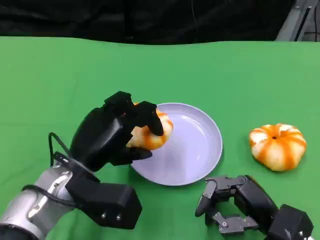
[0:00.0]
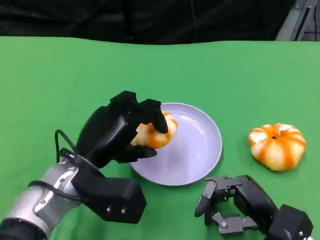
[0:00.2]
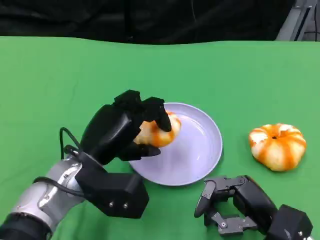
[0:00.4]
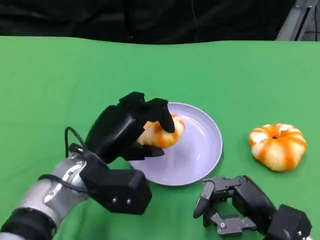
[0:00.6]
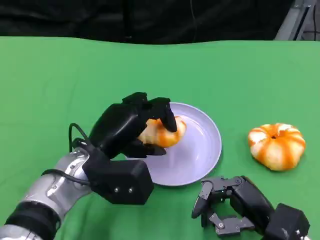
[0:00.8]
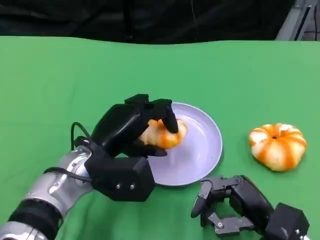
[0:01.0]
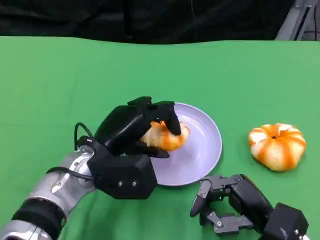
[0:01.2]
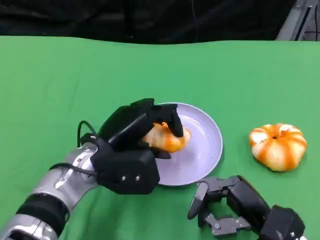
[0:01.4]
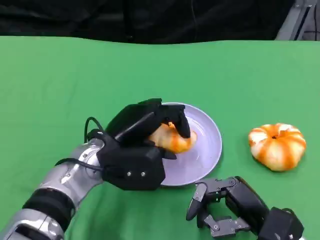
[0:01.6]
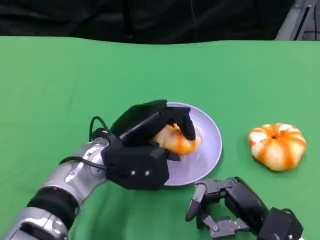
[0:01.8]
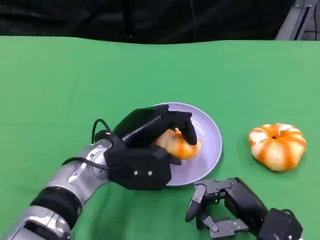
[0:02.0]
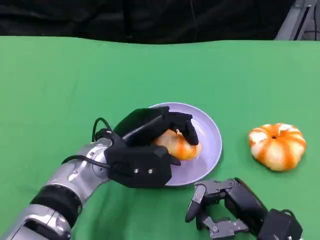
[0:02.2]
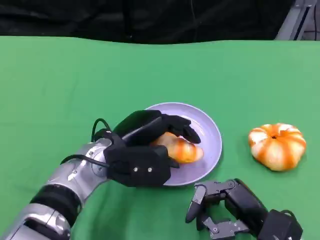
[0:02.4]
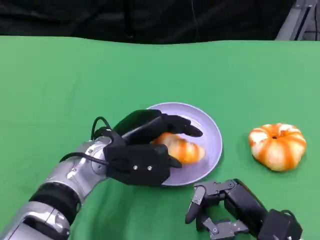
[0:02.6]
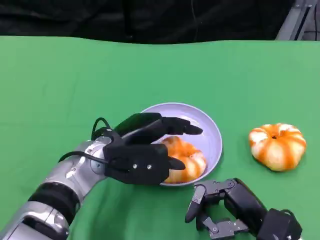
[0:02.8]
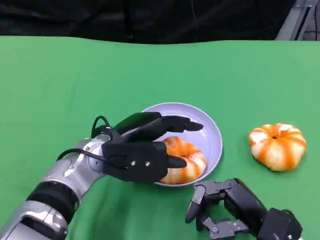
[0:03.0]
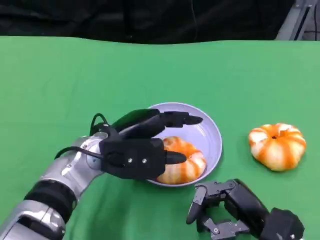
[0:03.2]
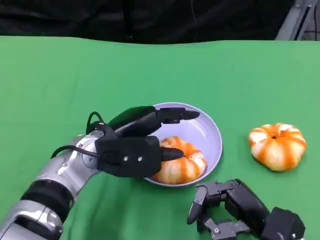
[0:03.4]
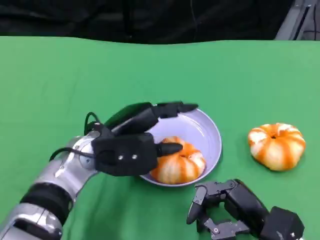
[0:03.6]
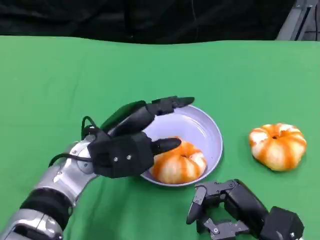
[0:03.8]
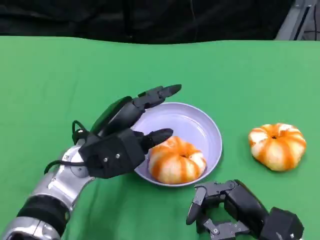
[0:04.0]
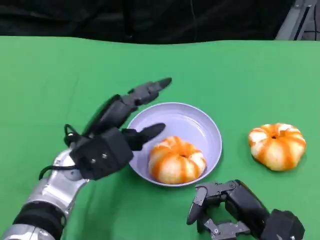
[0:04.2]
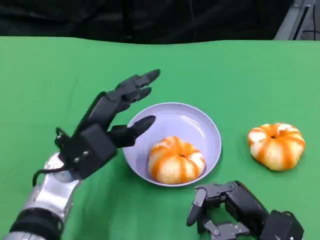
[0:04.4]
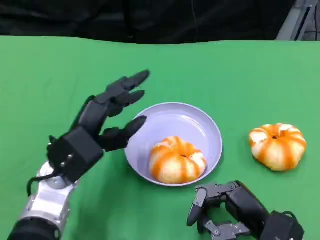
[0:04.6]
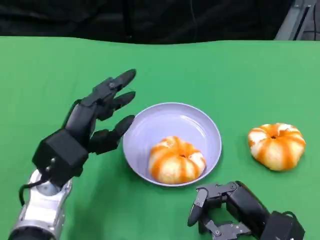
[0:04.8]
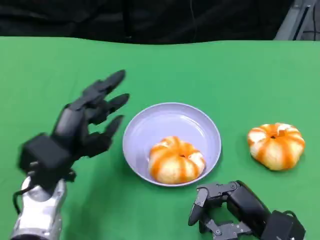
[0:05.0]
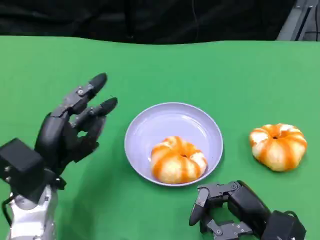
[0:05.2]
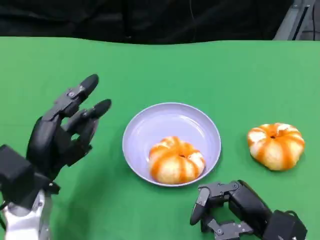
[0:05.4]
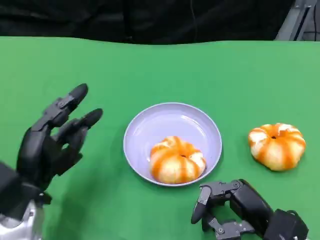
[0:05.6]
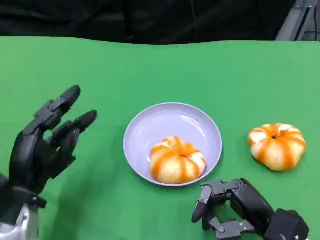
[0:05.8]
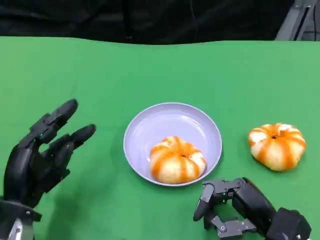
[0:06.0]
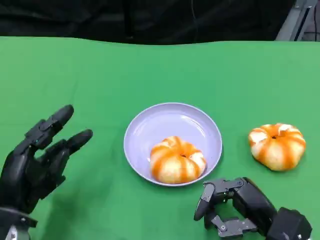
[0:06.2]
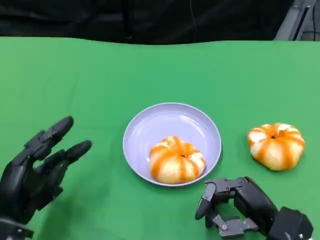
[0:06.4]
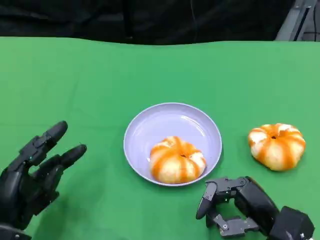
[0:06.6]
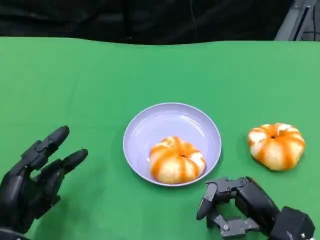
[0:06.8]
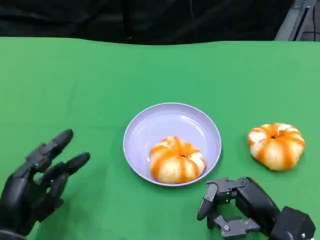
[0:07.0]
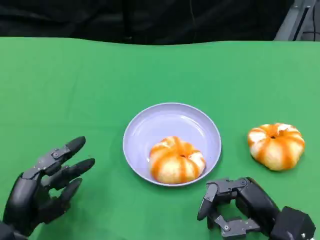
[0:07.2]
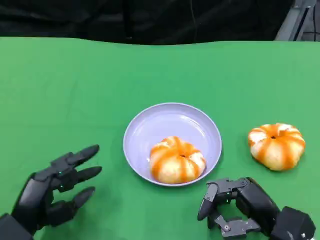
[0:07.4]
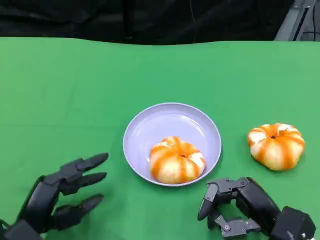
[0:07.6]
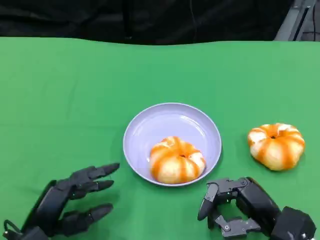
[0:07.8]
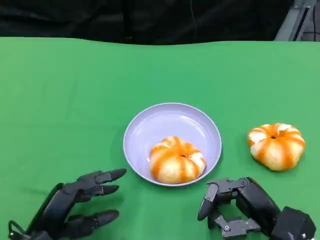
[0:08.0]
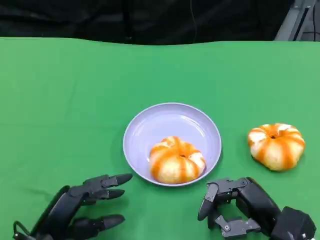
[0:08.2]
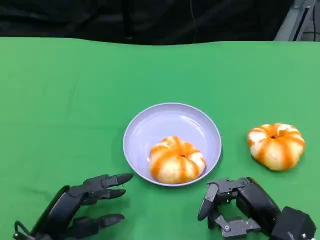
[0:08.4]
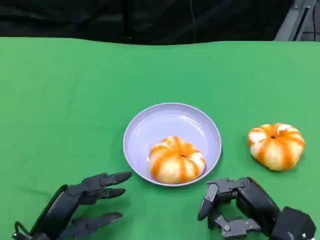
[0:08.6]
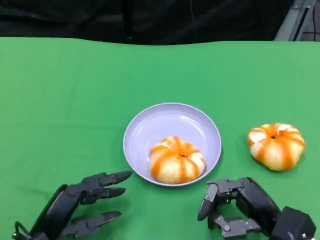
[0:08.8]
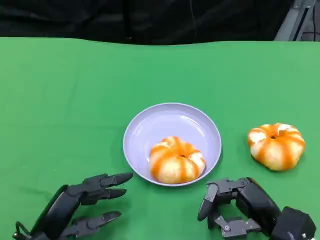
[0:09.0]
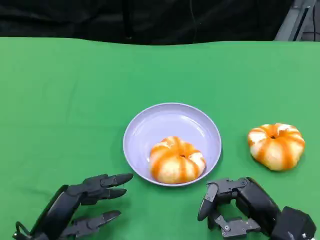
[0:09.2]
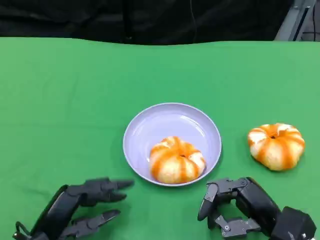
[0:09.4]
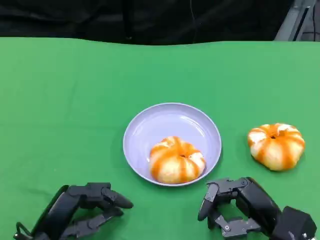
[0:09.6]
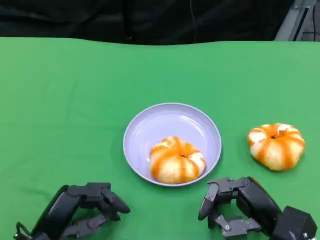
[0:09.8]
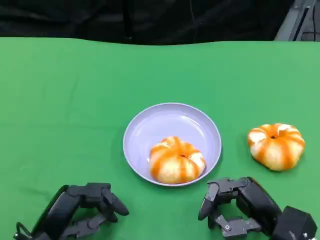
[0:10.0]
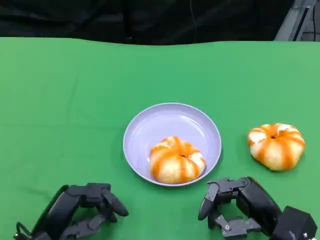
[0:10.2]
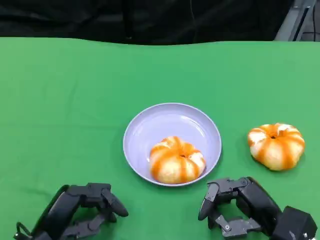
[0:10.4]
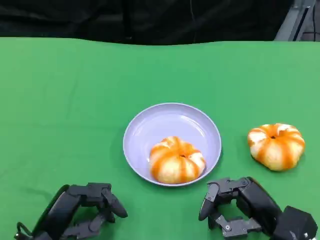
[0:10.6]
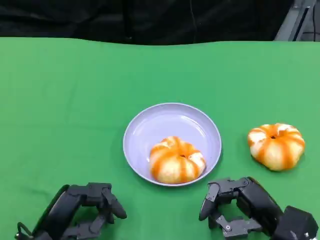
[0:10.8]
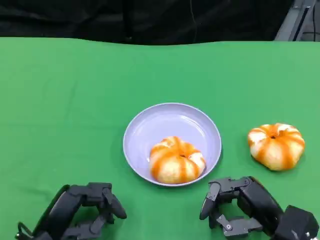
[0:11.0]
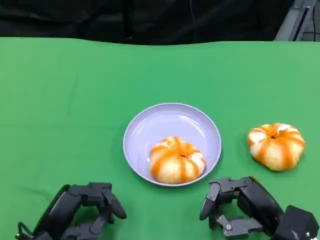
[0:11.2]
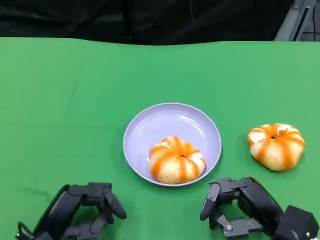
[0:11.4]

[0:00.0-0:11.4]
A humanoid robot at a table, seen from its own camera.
Task of the whole recording: Grasp the bread from the table and place it into the plate.
0:01.4 to 0:02.8: The hands make only small movements.
0:04.2 to 0:05.6: The left hand heads to the left and backward, covering roughly 10 cm.
0:05.6 to 0:07.2: The left hand shifts by about 5 cm.
0:08.6 to 0:11.4: Neither hand changes place.

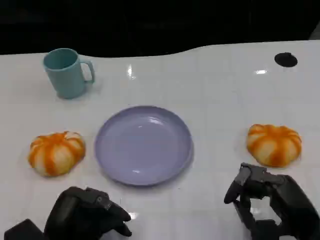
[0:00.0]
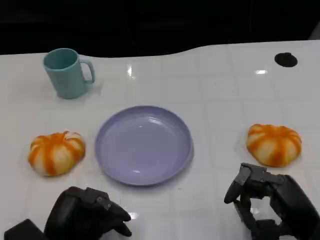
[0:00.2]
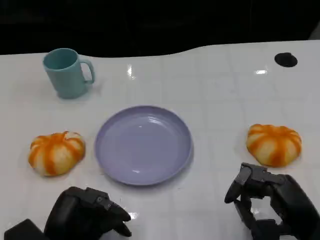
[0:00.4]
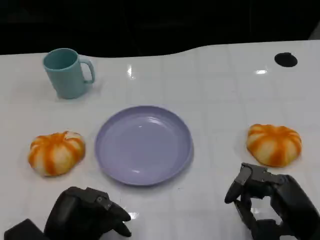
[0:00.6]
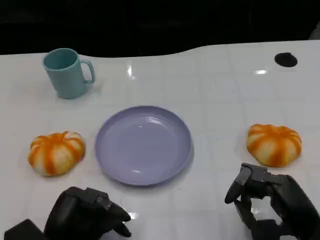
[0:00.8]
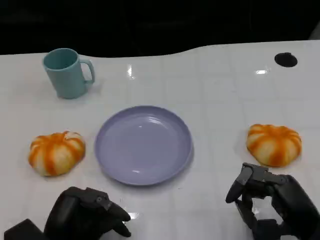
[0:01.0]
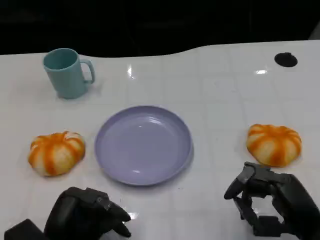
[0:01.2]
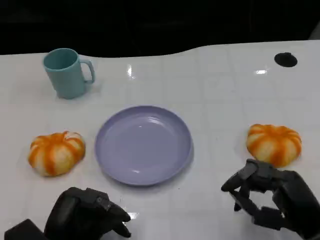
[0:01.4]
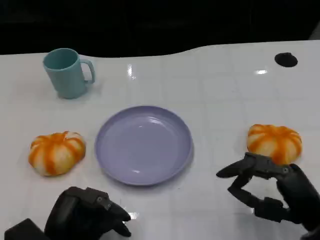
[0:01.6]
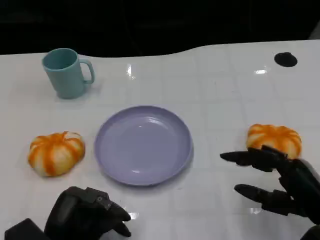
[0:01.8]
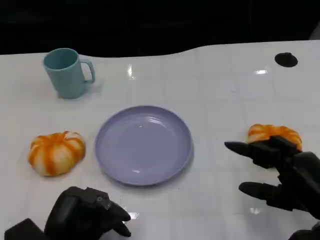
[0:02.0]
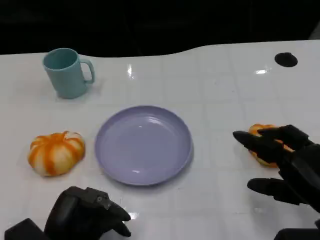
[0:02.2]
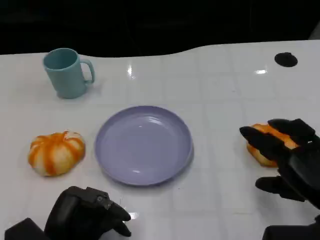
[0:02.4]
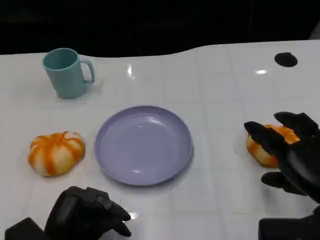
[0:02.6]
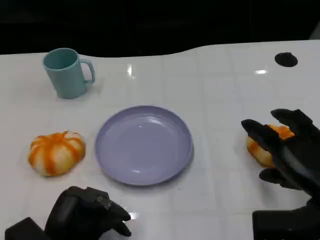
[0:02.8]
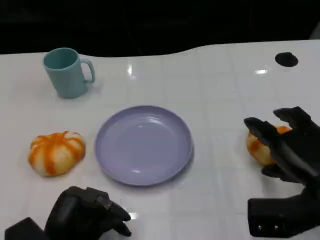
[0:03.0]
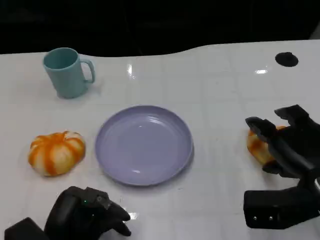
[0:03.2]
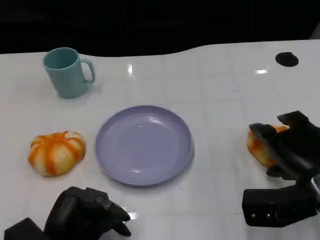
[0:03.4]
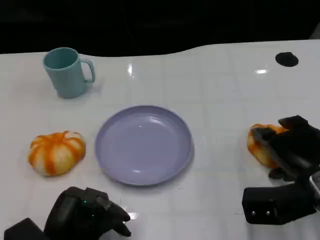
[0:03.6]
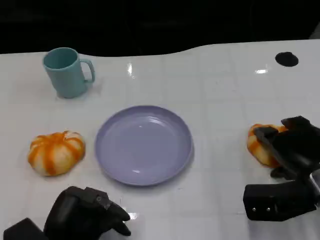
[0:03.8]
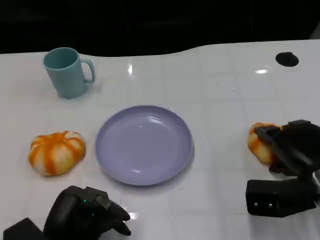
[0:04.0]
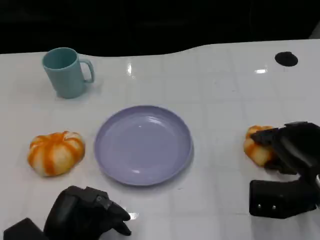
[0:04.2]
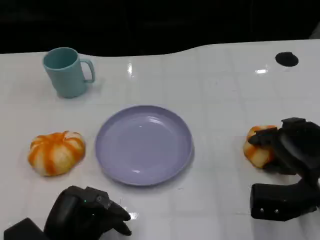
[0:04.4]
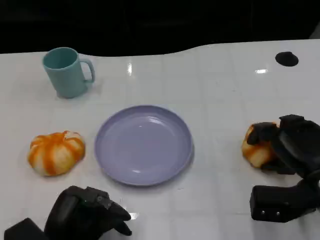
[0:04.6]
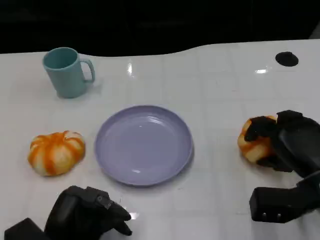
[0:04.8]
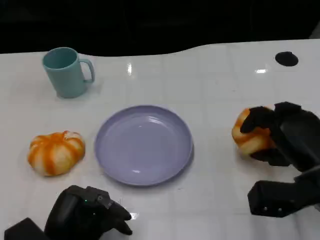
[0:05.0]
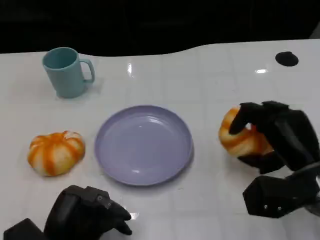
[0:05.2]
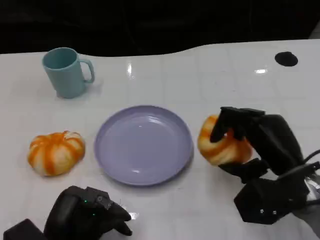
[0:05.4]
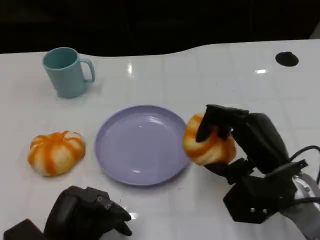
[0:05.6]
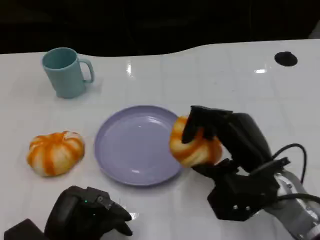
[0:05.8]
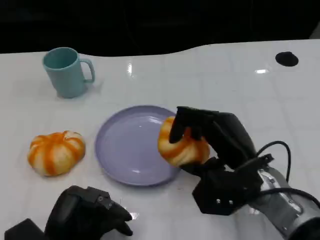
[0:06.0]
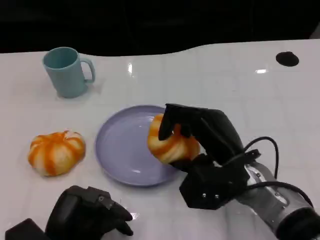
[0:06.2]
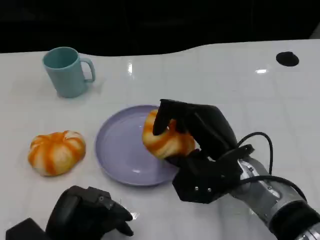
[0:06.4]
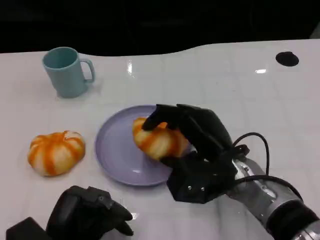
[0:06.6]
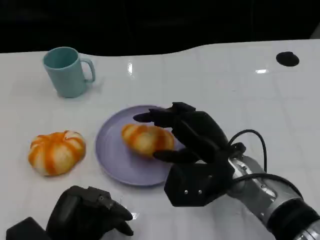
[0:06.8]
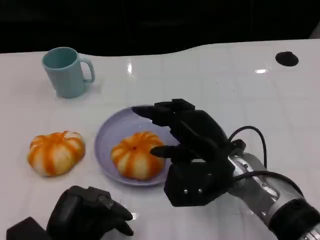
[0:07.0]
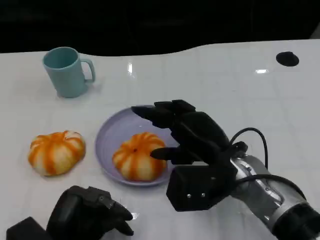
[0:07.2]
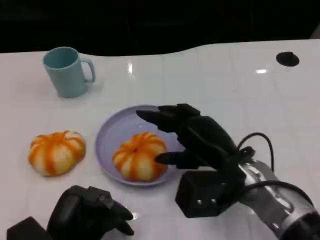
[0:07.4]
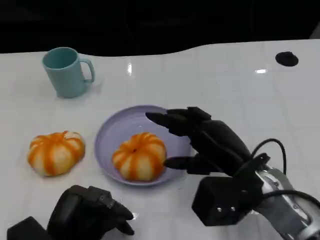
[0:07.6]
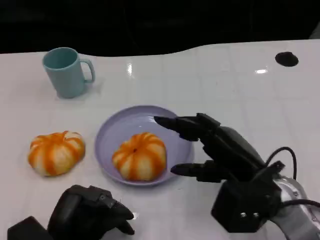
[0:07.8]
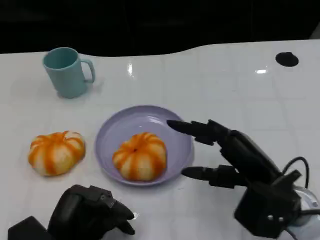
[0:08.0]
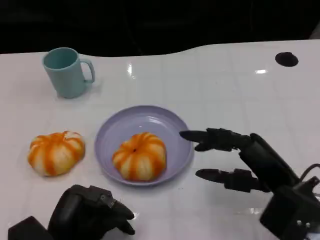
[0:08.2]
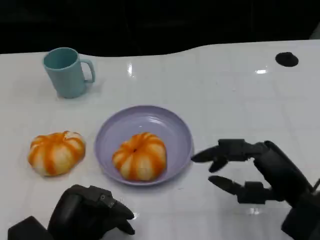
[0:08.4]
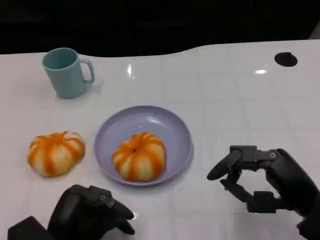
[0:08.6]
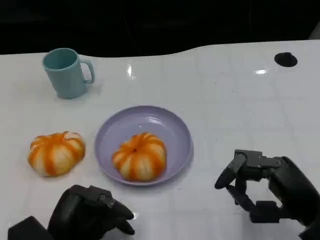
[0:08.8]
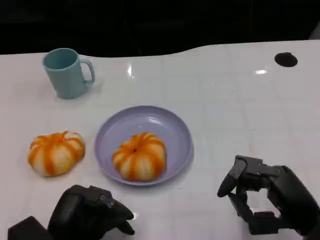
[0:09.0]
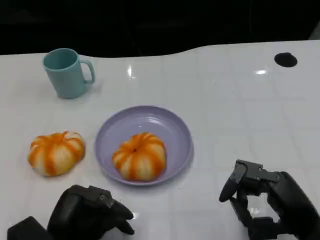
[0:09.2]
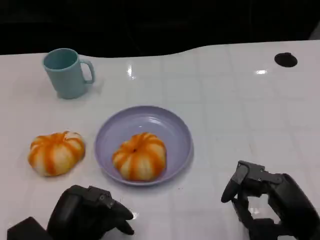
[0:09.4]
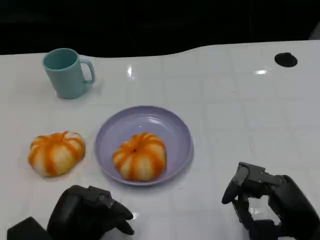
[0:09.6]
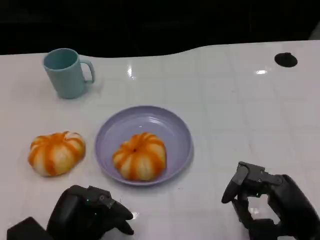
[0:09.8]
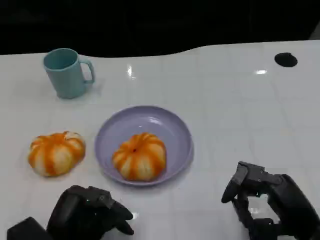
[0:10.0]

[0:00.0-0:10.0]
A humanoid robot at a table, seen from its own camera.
Task of the whole recording: Grasp the bread from the table and place it into the plate.
0:00.0 to 0:01.4: Both hands stay put.
0:01.4 to 0:02.8: The right hand moves roughly 5 cm.
0:02.8 to 0:04.2: The right hand shifts by some 5 cm.
0:04.2 to 0:05.8: The right hand heads to the left, covering about 10 cm.
0:07.2 to 0:08.6: The right hand is displaced to the right and backward by some 15 cm.
0:08.6 to 0:10.0: The hands move only a little.

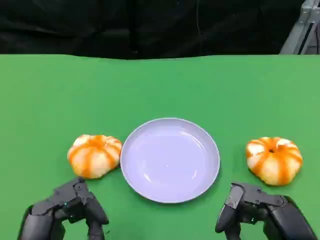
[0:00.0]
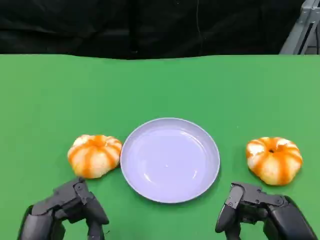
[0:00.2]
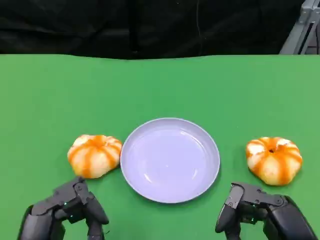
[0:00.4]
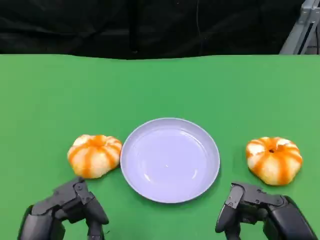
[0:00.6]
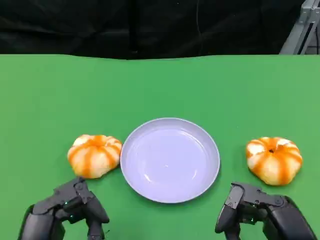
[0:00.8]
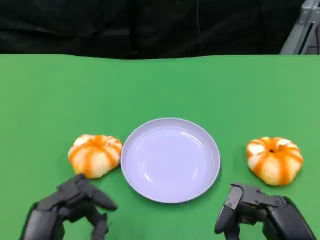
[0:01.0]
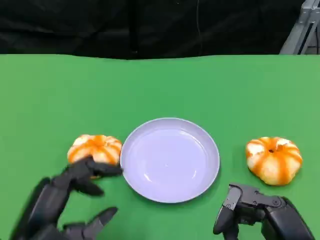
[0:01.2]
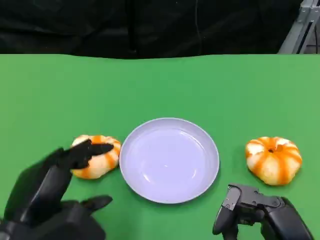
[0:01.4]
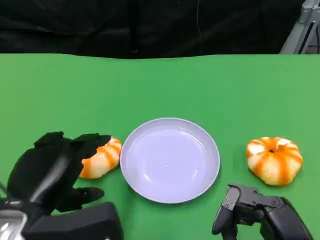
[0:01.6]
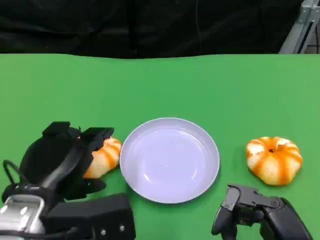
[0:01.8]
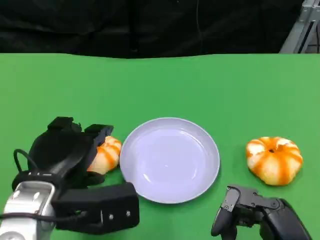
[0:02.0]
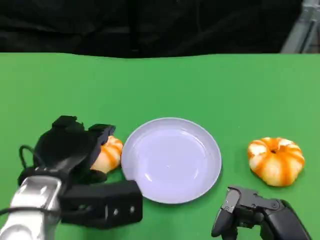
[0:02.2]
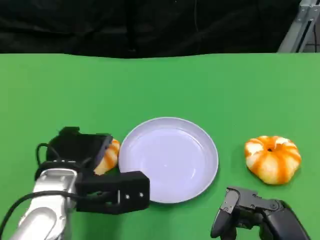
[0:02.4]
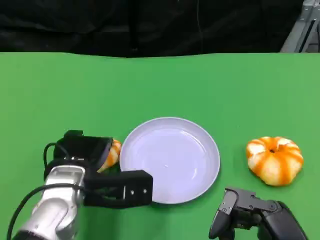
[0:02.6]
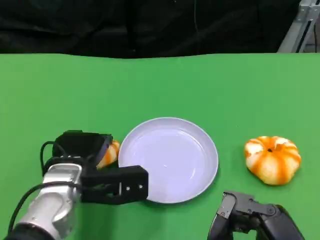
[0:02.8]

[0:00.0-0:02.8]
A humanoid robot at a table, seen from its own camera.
Task of the whole recording: Grasp the bread from the table and place it into the plate.
0:00.0 to 0:01.4: The left hand goes some 5 cm forward.
0:01.4 to 0:02.8: The left hand shifts some 15 cm forward and downward.
